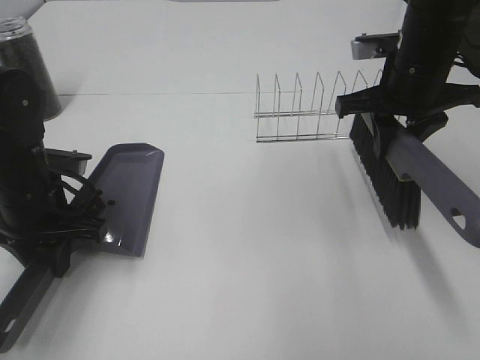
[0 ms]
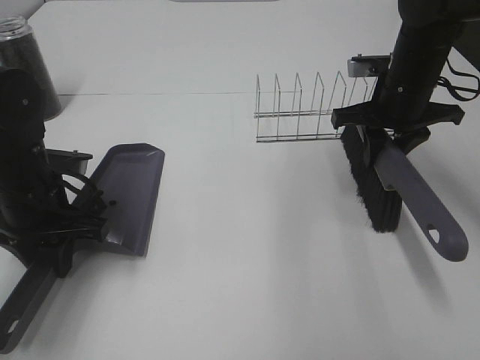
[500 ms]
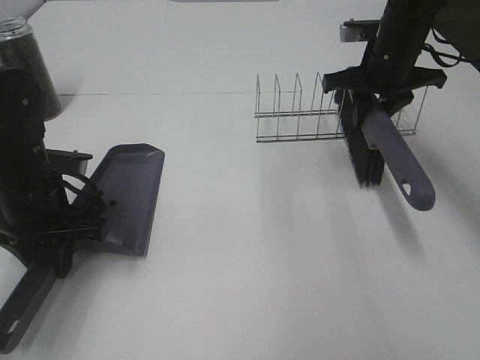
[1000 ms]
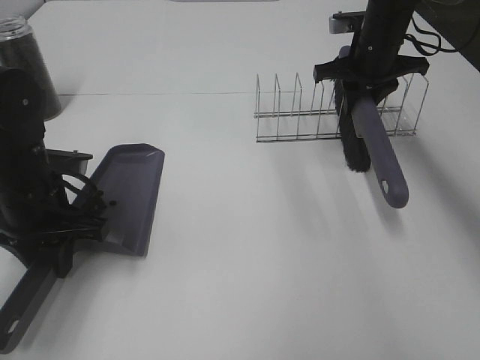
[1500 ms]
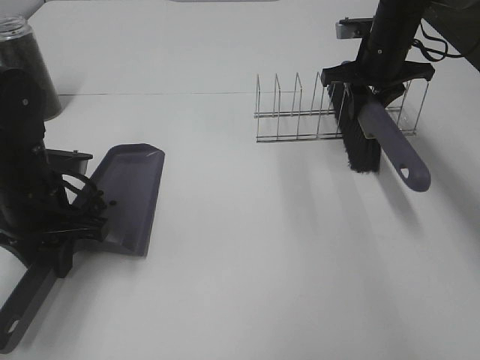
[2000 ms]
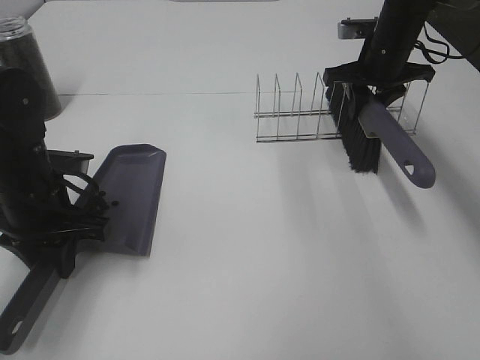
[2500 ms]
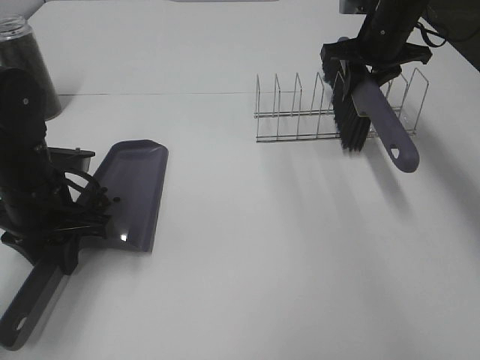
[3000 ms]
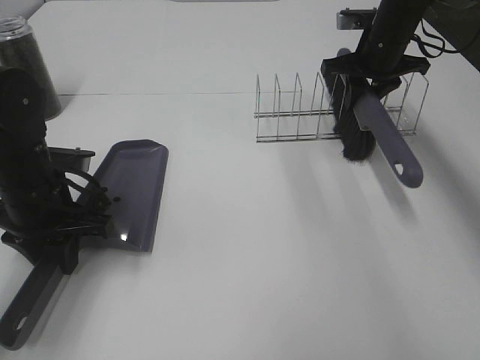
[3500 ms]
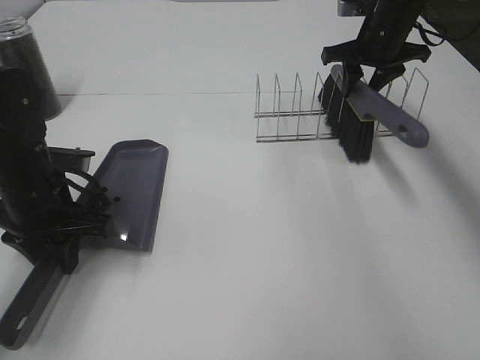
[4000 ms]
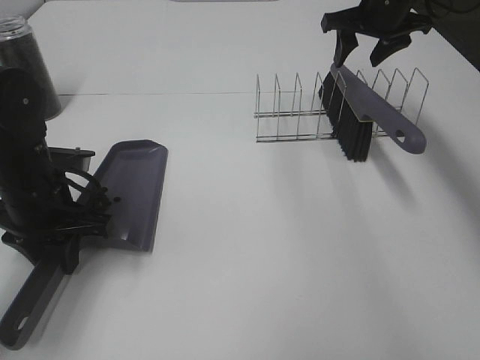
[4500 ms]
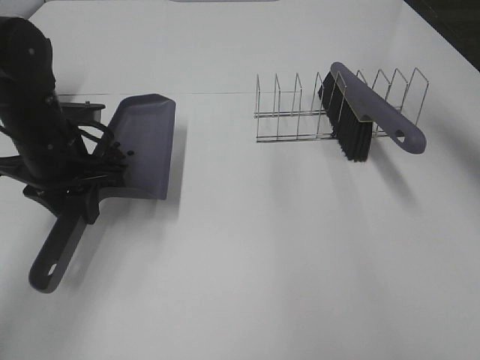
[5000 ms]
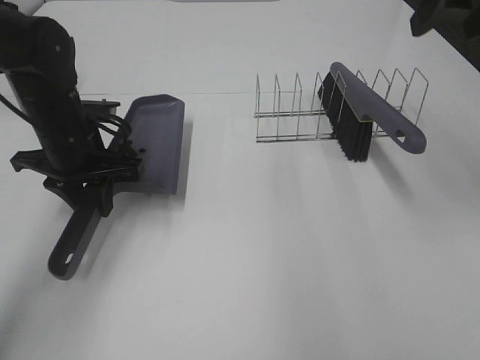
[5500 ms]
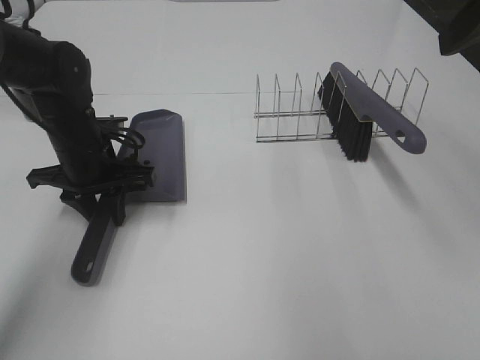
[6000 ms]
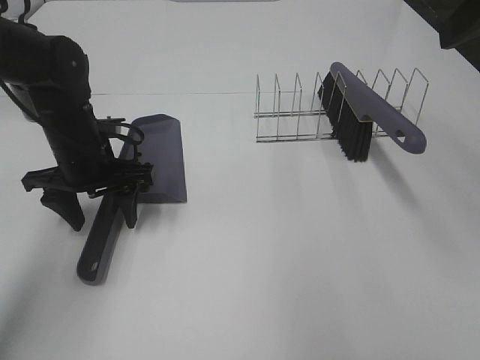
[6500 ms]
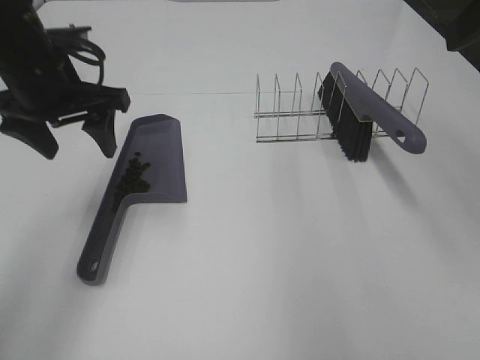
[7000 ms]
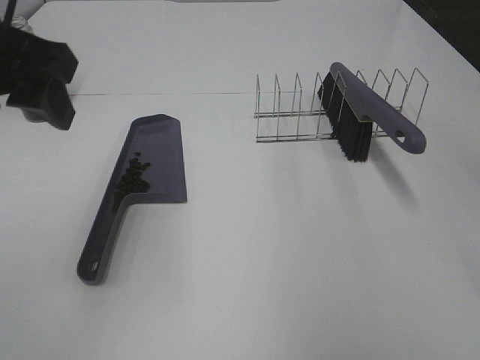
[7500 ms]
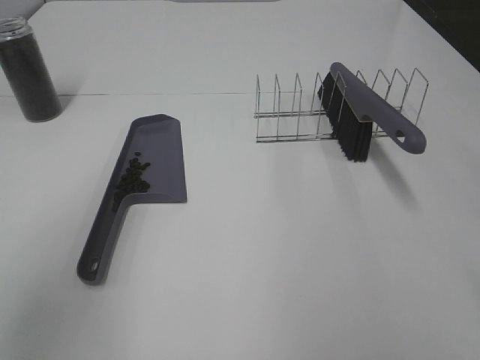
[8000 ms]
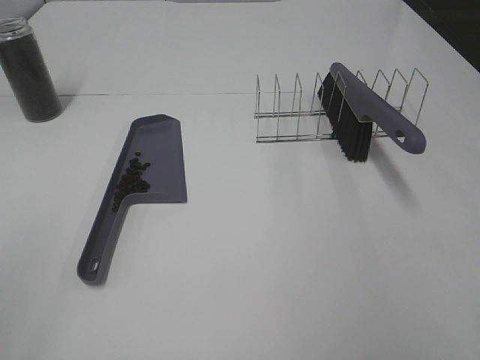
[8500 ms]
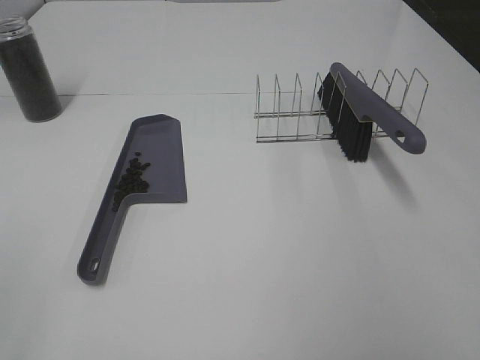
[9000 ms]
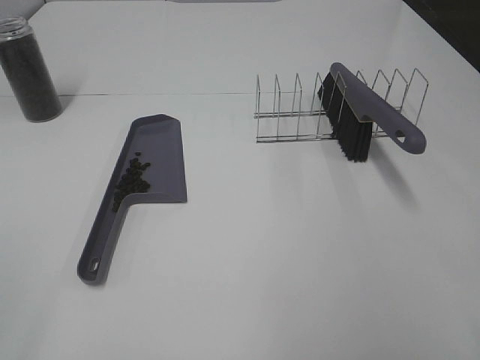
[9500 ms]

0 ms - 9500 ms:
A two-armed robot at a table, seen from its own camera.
Task of the whole recording: Sweep Coffee Bean.
Step, 0 ms - 4000 ms: Right hand:place the broom on the rack.
Step, 4500 ms - 6500 ms: Left hand:place the dustpan on the table.
0 ms - 2000 ms: The right gripper goes some 10 cm forward.
2000 ms - 4000 ms: The grippers make only small movements.
4000 ms - 5500 ms: The right gripper shifts roughly 25 cm backward and upward. The left gripper moves forward, approximately 5 cm.
5500 ms - 7500 ms: The left gripper goes roughly 25 cm upward and backward, and opens up. Meanwhile the right gripper heads backward, covering some 15 cm.
7500 ms - 9500 ms: The left gripper is displaced backward and to the left by about 30 cm.

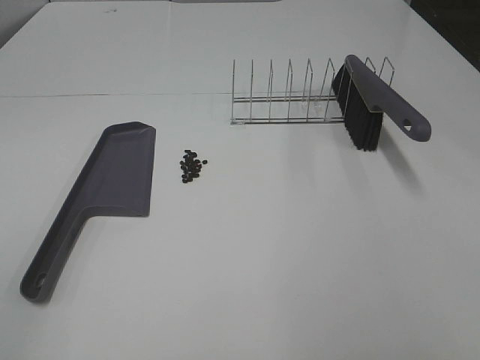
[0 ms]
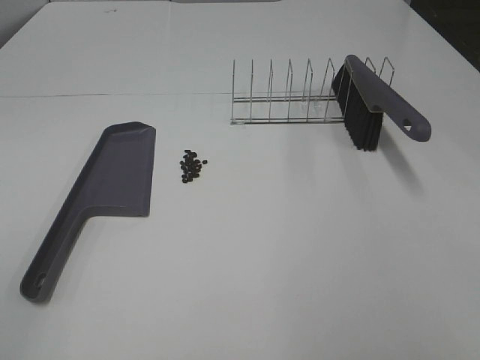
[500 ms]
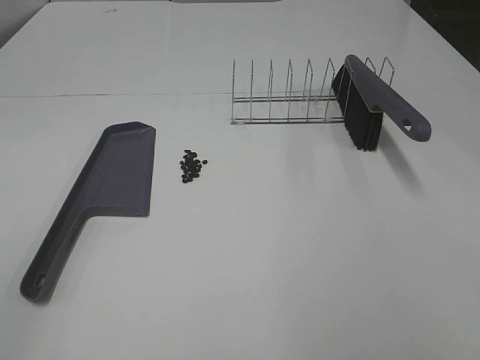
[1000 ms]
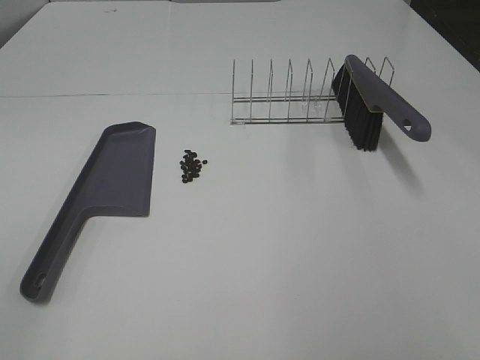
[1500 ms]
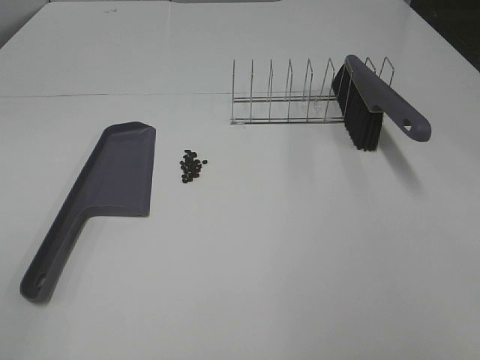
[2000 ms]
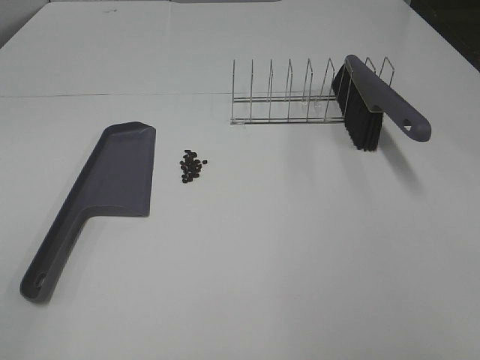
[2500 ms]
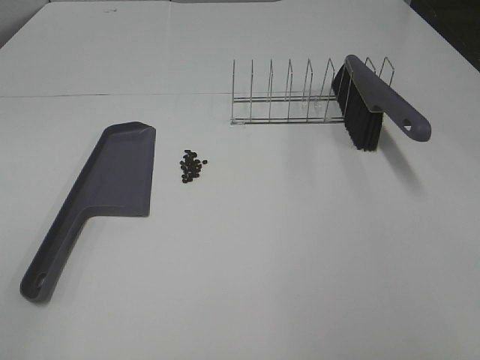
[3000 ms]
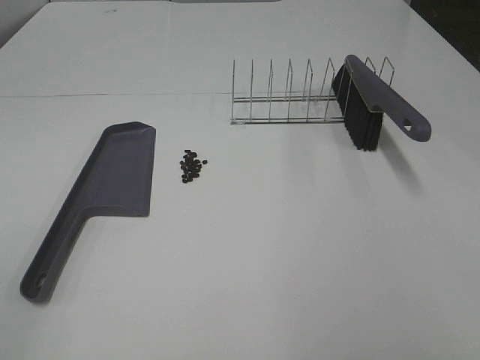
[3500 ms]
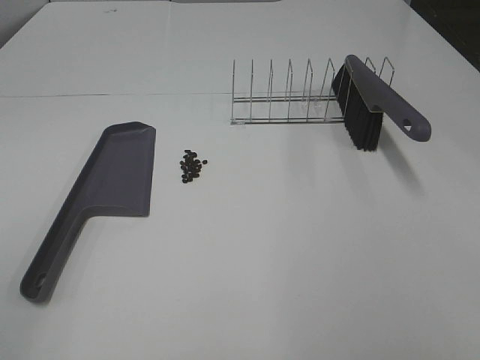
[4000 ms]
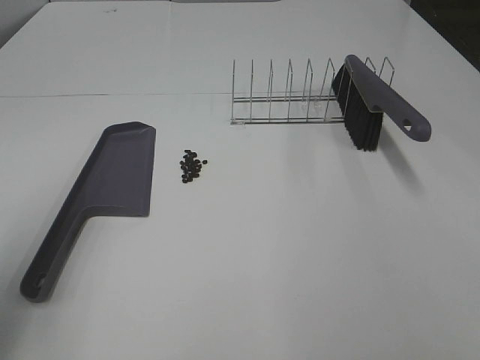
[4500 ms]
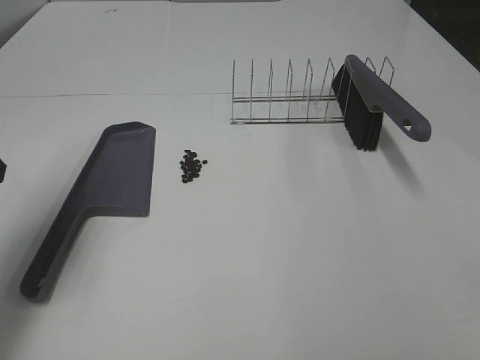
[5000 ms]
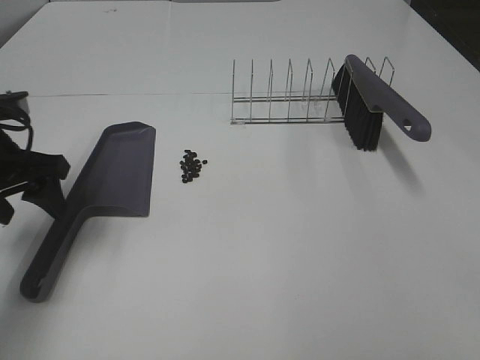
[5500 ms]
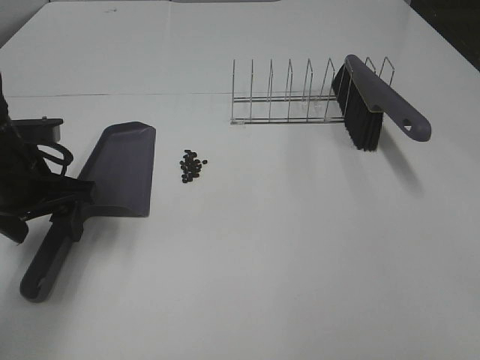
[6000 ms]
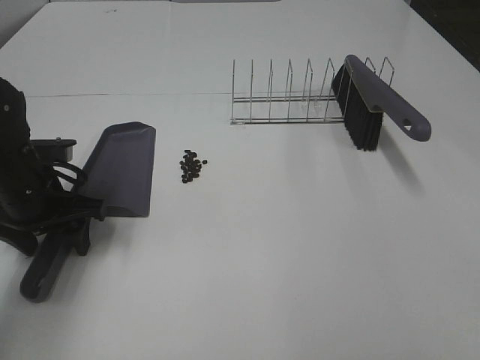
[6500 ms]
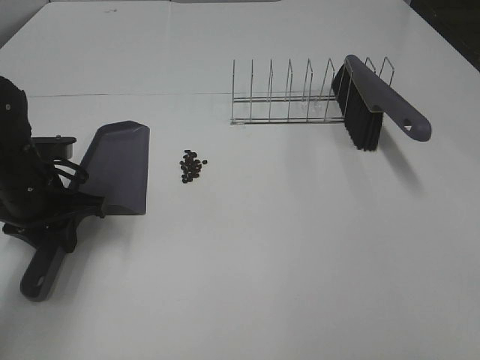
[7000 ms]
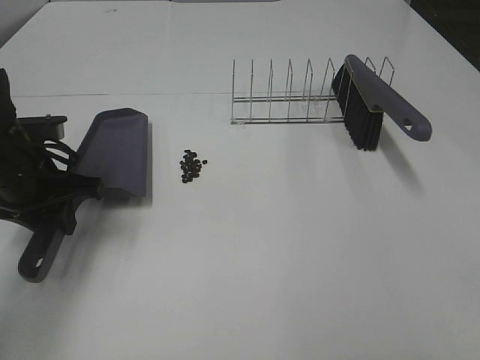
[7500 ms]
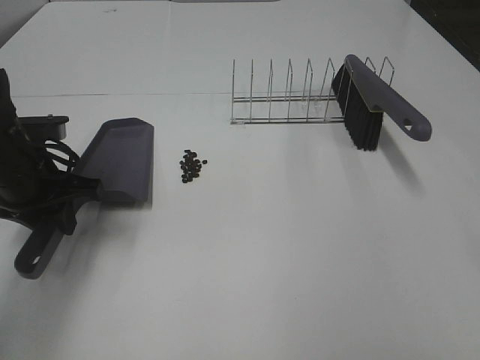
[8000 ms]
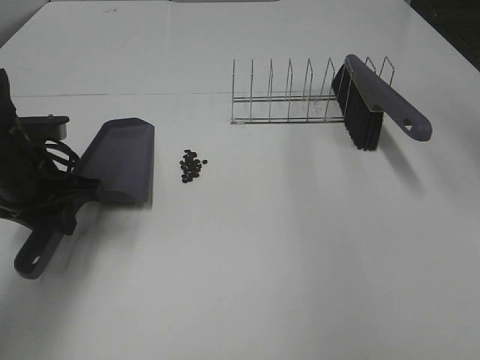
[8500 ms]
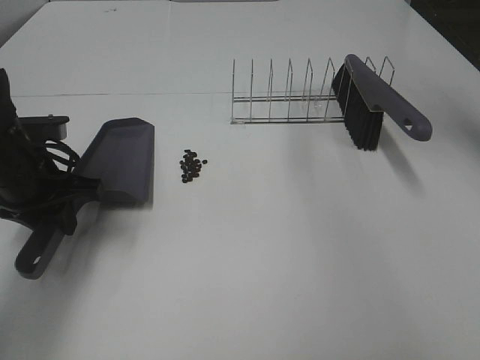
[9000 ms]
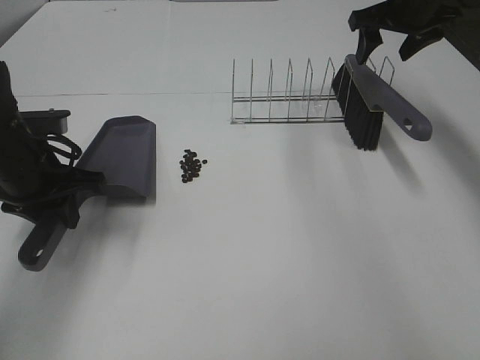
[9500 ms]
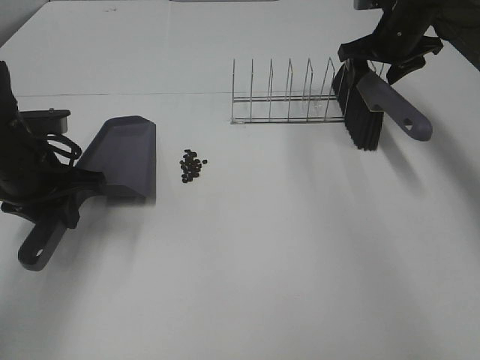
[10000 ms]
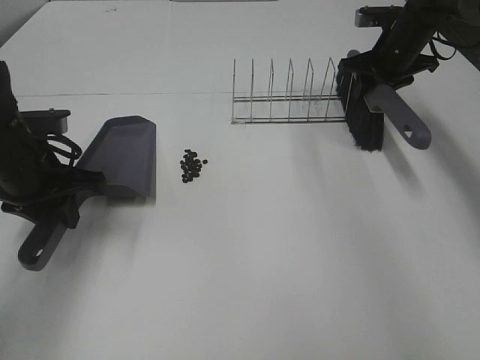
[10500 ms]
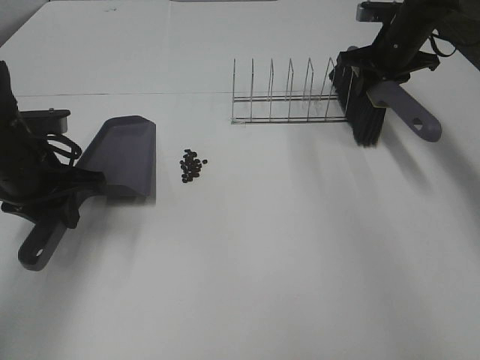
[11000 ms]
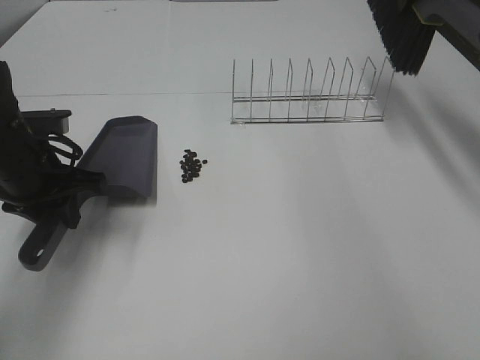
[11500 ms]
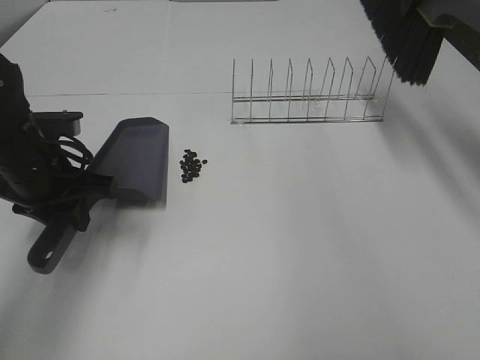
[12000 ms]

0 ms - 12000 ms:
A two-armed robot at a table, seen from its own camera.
Task of the whole recording: Sweep Coffee Bean.
Step, 0 ms - 6500 ms: Left hand: grab the dustpan.
Step, 8000 ms - 10500 ms: Right hand:grab the broom.
0 ms - 2000 ms: The two grippers keep their place.
4000 ms - 6000 ms: The left gripper heads forward and downward, covering about 35 cm.
6000 ms - 8000 ms: The left gripper closes its fingers.
8000 ms - 10000 ms: The right gripper goes approximately 50 cm forward.
10000 ms - 12000 ms: The right gripper moves upward and backward, approximately 15 cm, and closes its fingers.

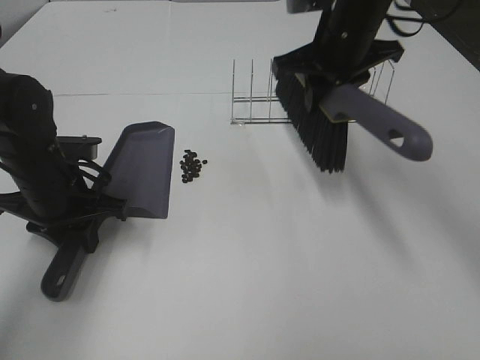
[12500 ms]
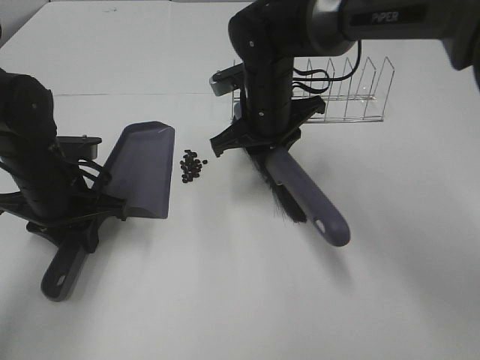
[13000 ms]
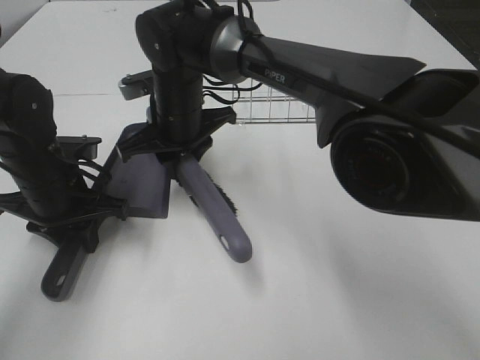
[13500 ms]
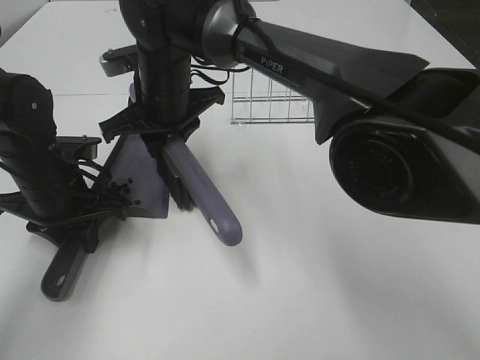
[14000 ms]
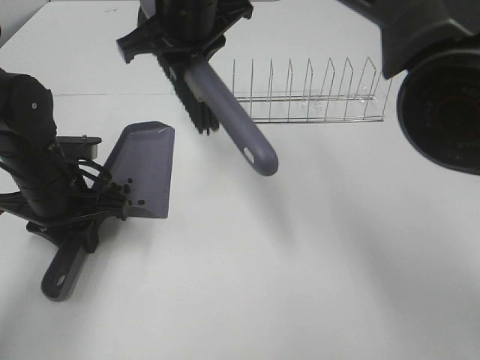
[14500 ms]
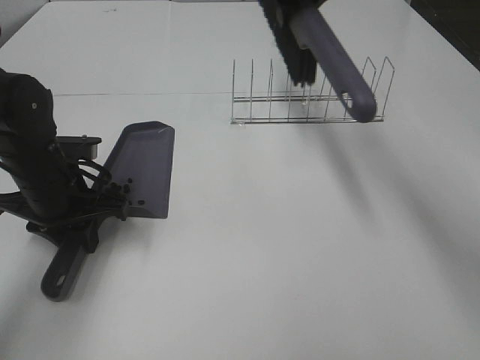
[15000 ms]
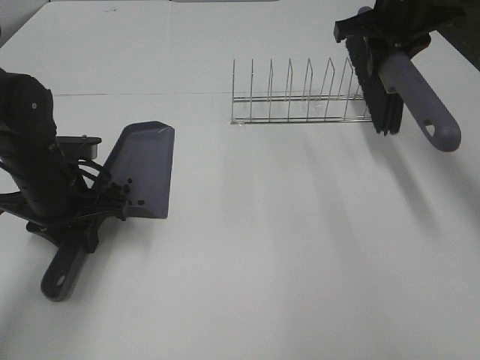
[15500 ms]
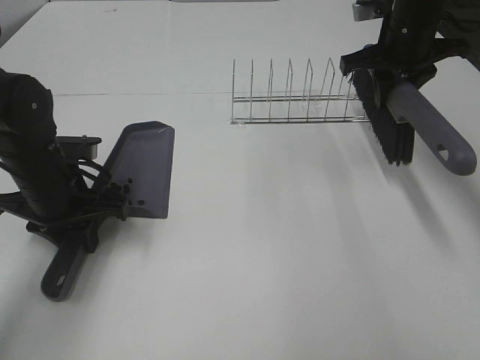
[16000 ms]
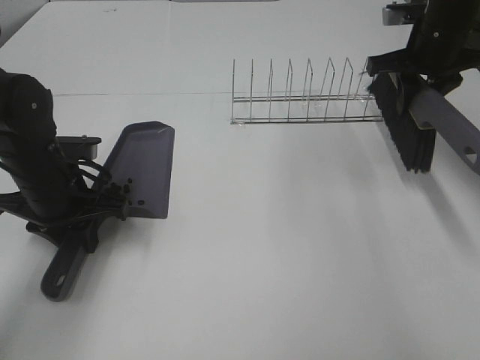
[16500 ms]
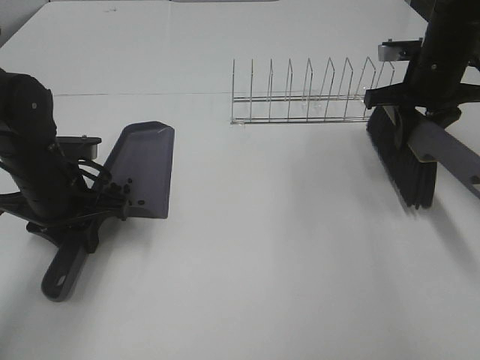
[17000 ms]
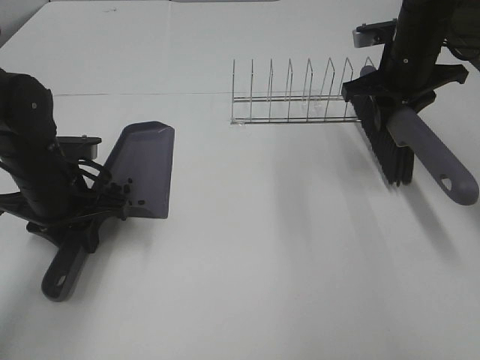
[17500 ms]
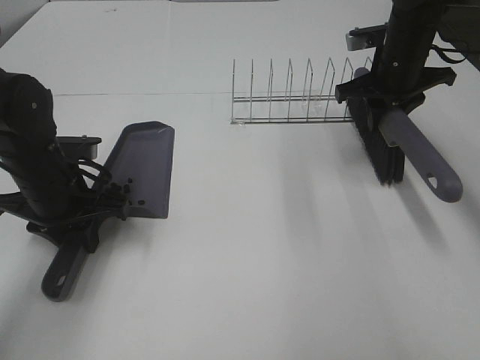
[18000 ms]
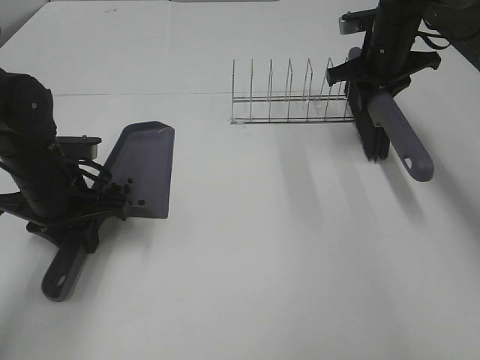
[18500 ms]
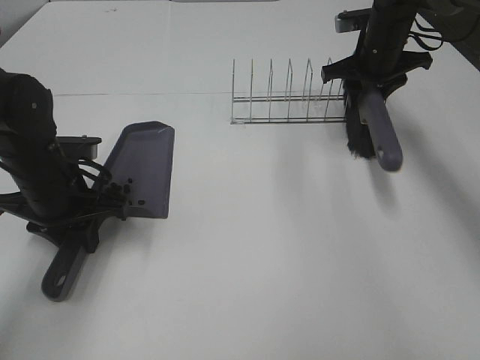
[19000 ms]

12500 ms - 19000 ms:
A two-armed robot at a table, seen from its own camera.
Task of the whole recording: Sweep Coffee Bean.
12500 ms - 14500 ms: The right gripper heads to the left, covering approximately 15 cm.
14500 ms - 17000 ms: The right gripper moves to the right, approximately 30 cm.
17000 ms - 19000 ms: The right gripper is displaced forward by approximately 10 cm, and opens up.
